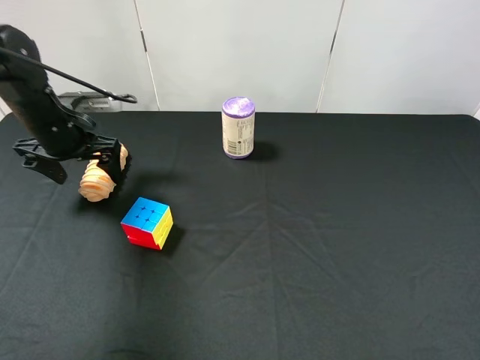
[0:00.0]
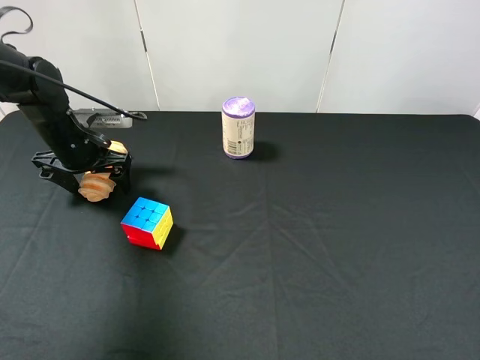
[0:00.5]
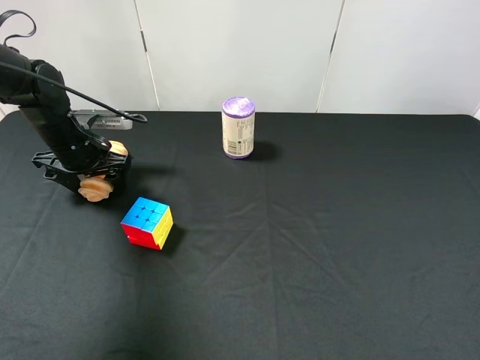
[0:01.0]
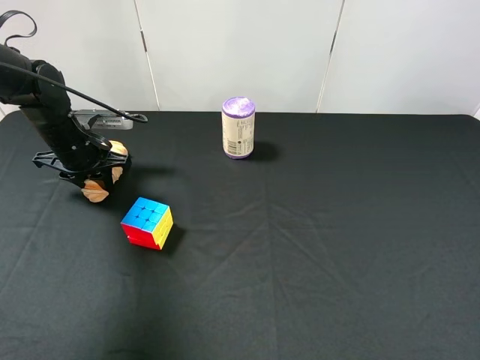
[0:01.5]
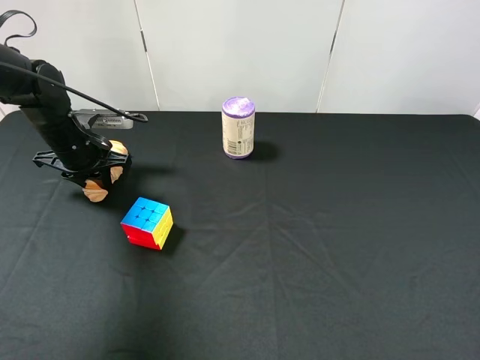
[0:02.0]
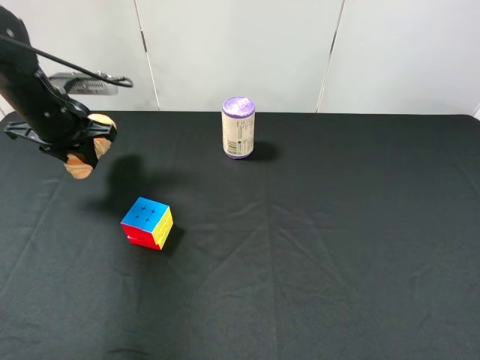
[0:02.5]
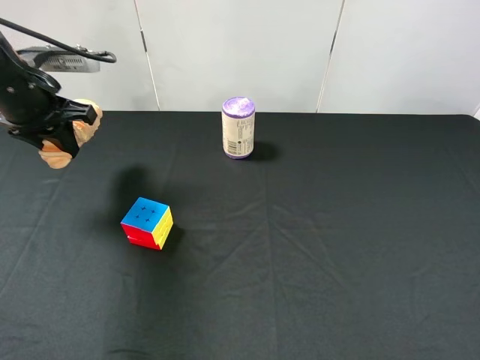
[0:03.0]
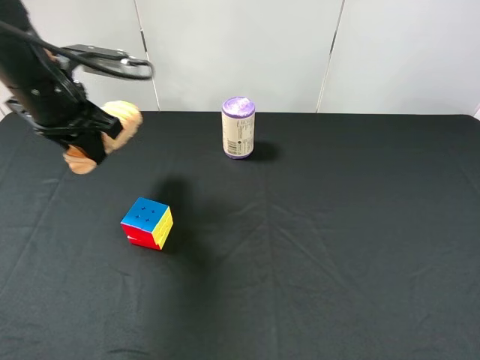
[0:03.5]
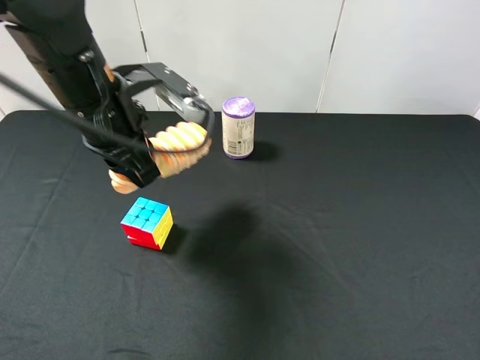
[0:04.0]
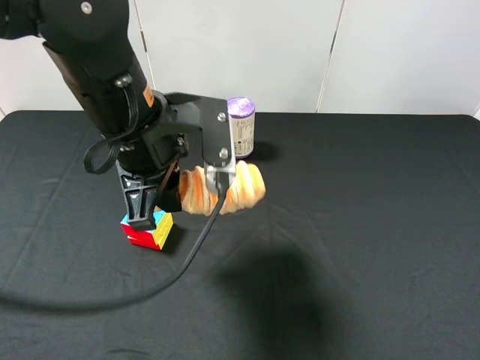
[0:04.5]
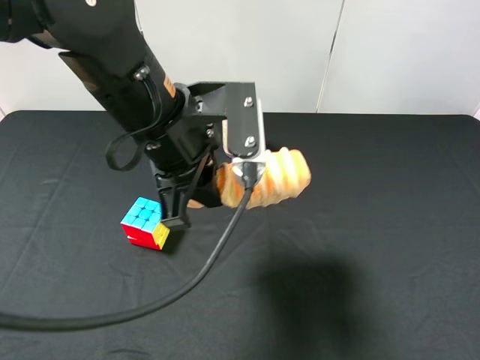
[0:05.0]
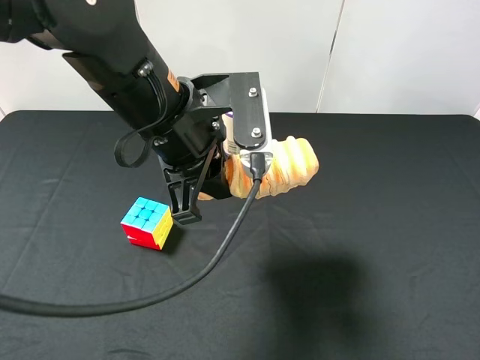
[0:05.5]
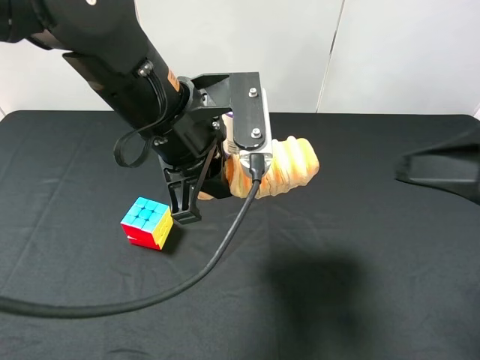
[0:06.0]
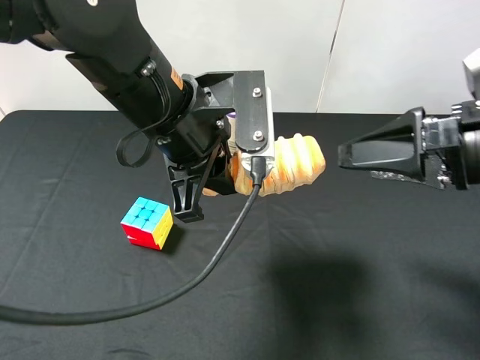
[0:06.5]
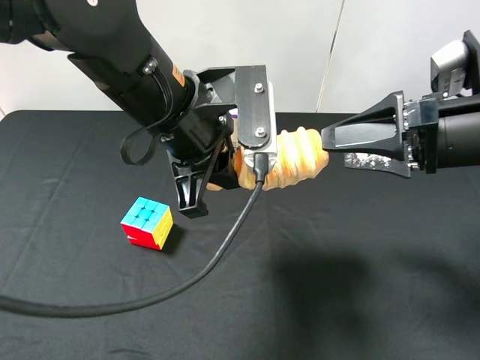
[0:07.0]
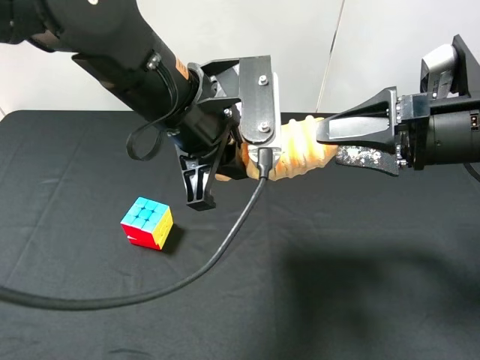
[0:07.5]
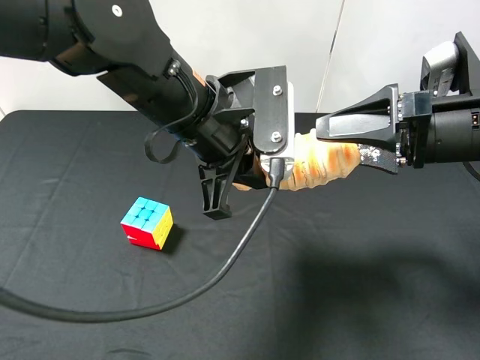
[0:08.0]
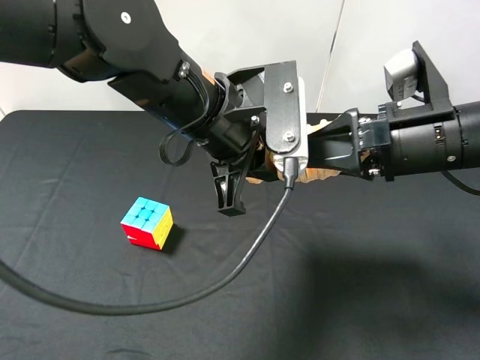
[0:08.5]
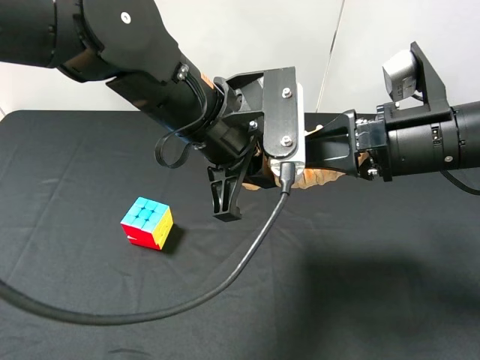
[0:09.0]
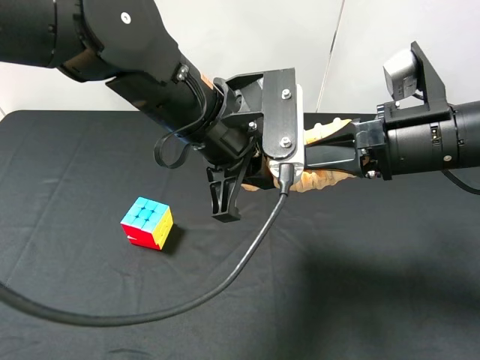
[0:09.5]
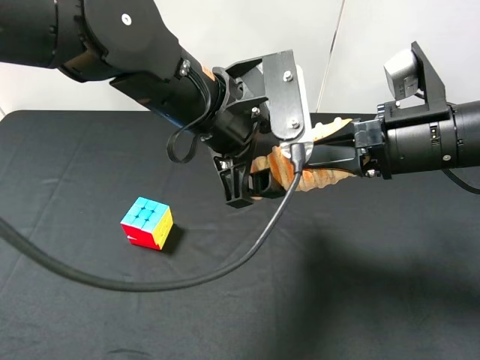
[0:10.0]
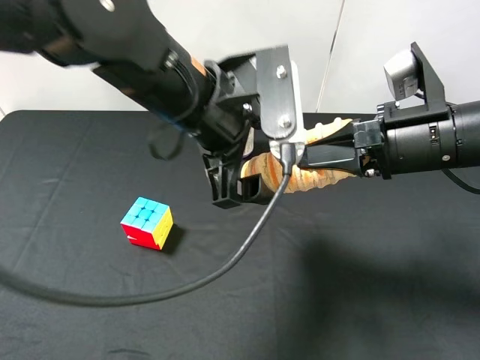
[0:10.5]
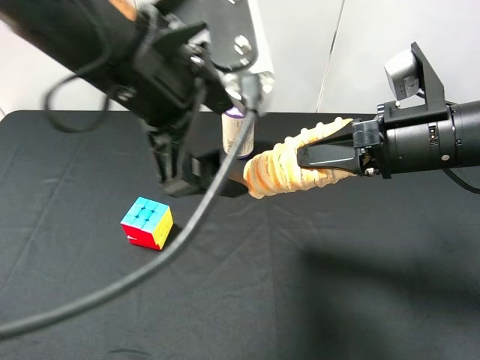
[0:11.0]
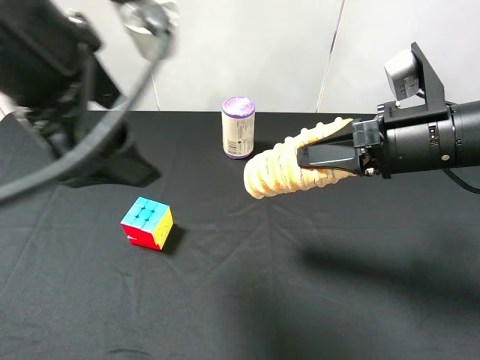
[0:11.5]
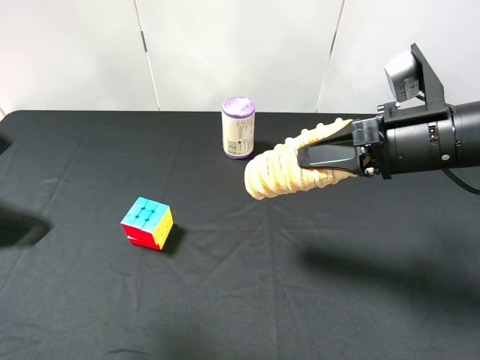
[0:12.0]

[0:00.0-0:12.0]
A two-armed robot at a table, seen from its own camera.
Task of the whole recording: use the left gripper to pick up the item and transfer it from the left gripper to the right gripper.
0:00.0 to 0:02.0: The left gripper closes its fingers.
0:02.0 to 0:04.0: The left gripper heads to the right, upward and backward, covering some 20 cm.
0:04.0 to 0:06.0: The right gripper travels forward by about 10 cm, while the left gripper heads to the right, covering approximately 5 cm.
0:06.0 to 0:08.0: The right gripper is displaced forward by approximately 10 cm.
0:08.0 to 0:10.0: The left gripper opens its fingers. Meanwhile the right gripper closes up.
0:10.0 to 0:12.0: The left gripper goes about 25 cm to the left, backward and upward.

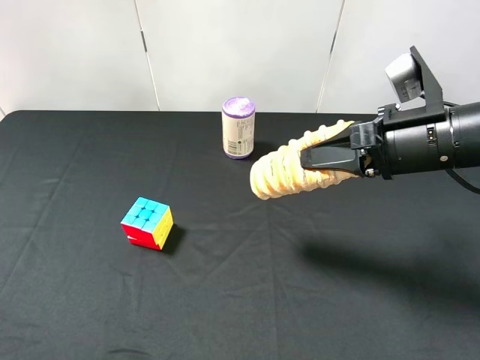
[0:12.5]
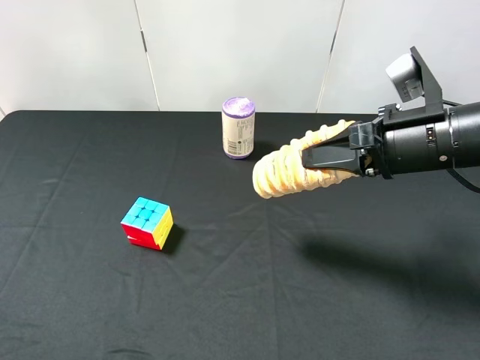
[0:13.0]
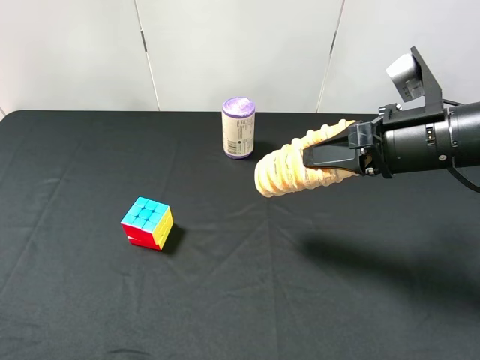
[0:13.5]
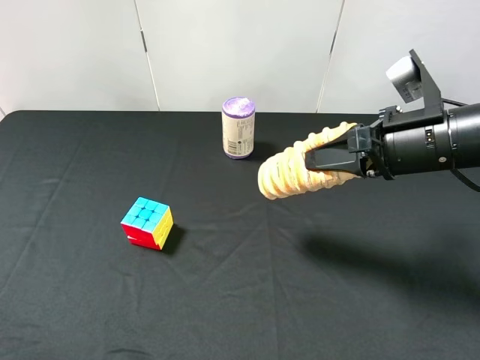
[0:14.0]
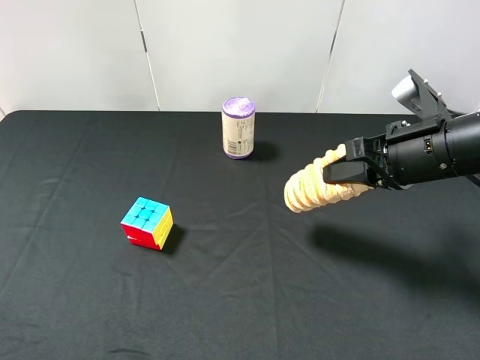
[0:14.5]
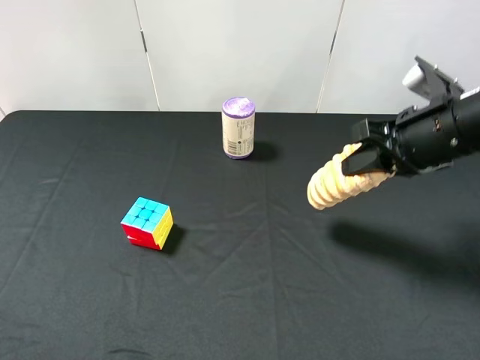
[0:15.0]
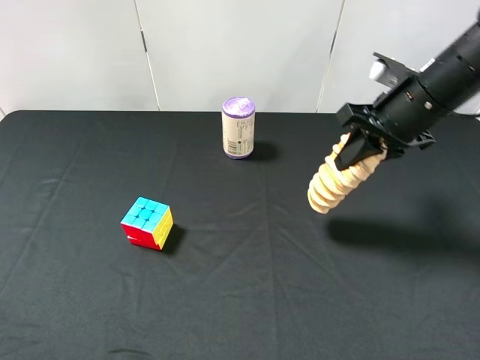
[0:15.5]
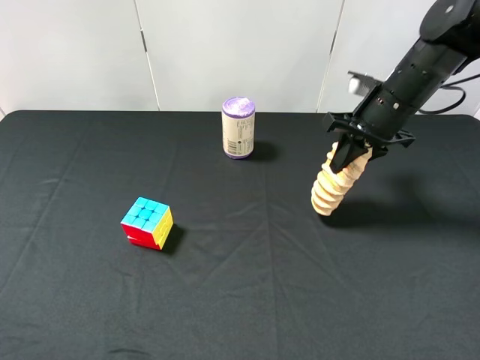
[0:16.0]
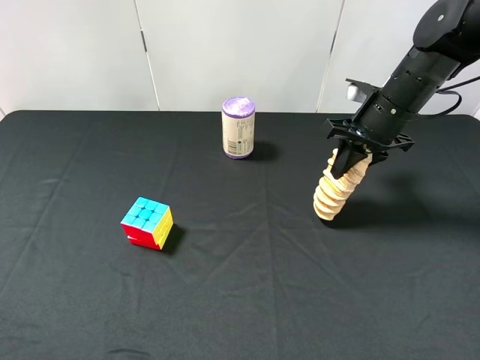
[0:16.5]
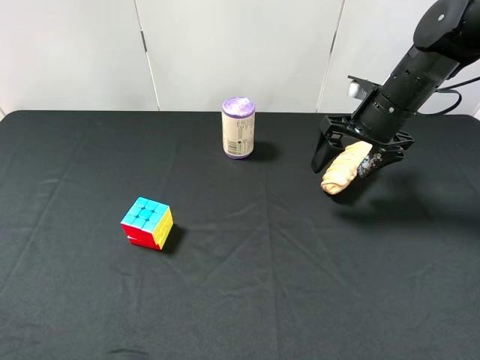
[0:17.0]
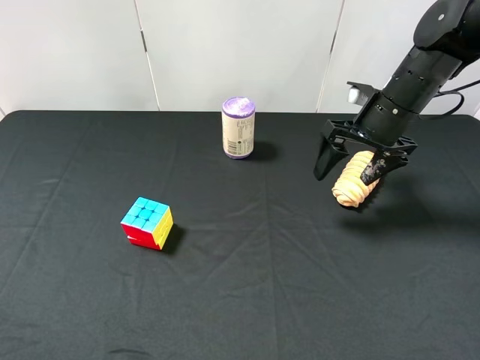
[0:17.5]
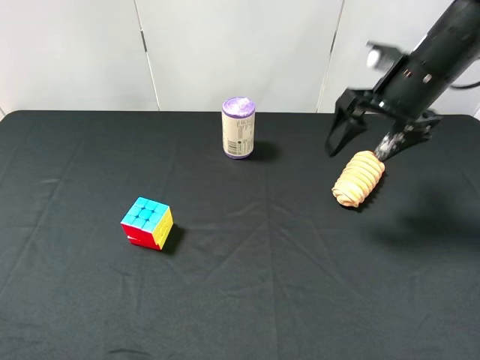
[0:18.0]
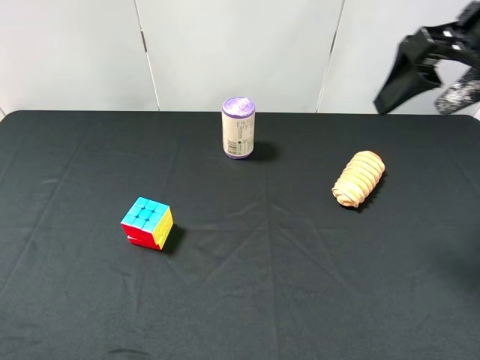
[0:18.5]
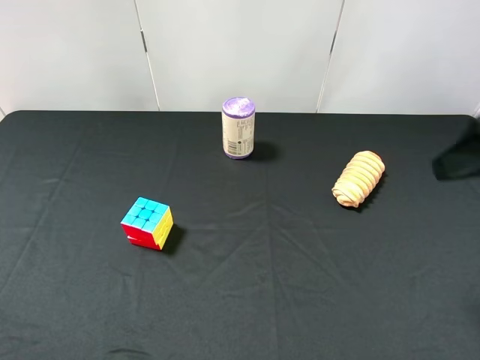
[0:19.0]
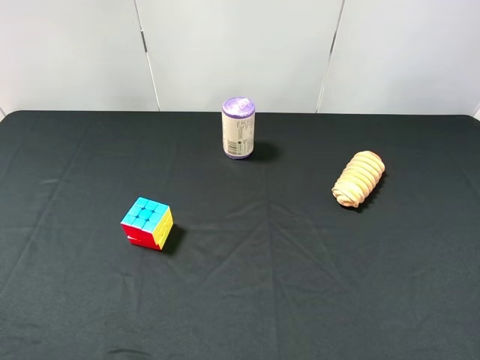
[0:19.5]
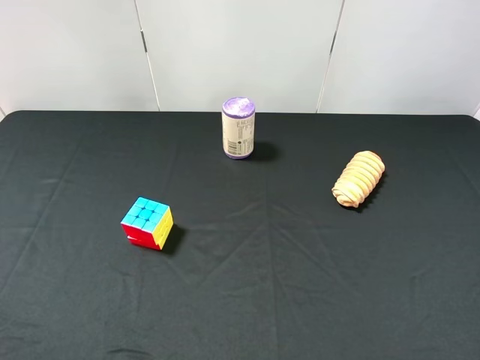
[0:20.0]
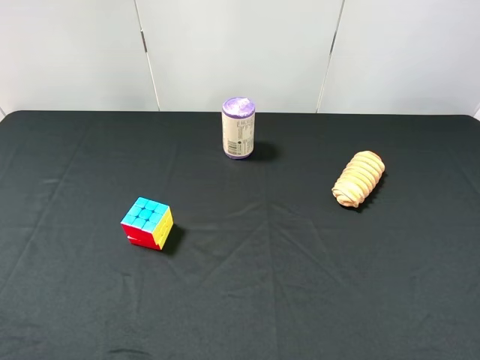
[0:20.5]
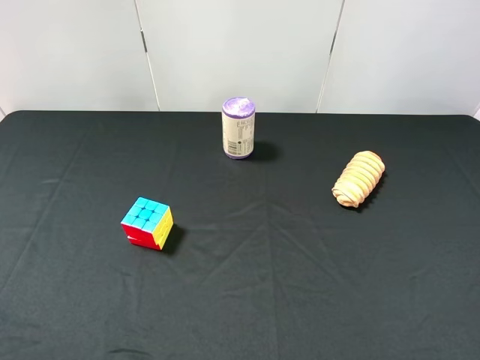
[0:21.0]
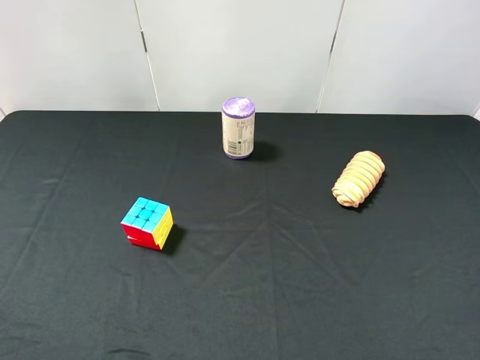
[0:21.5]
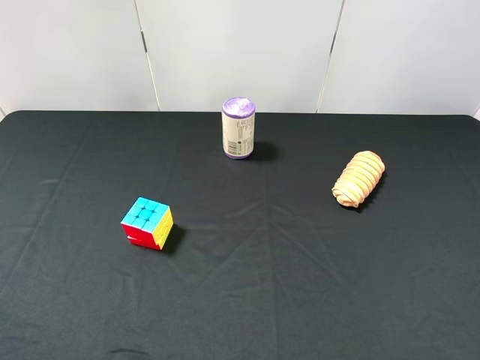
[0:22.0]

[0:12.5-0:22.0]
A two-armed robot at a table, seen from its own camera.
Task of the whole recording: use the left gripper to pick up the item and transfer it from the left gripper to the right gripper.
0:14.5 to 0:16.5: The right gripper moves forward, some 15 cm.
0:16.5 to 0:18.0: The right gripper goes approximately 5 cm upward, and opens.
0:18.0 to 0:20.0: The right gripper heads backward, covering approximately 30 cm.
